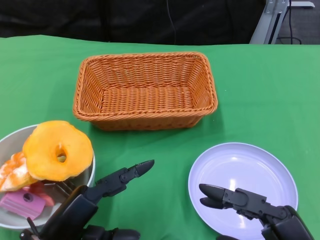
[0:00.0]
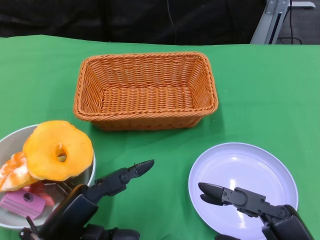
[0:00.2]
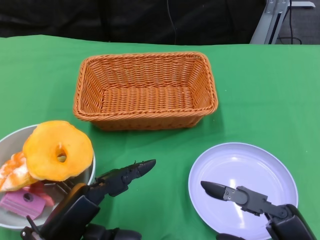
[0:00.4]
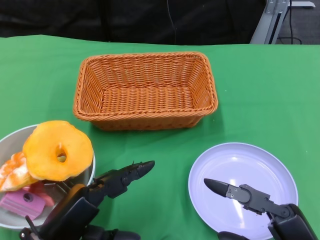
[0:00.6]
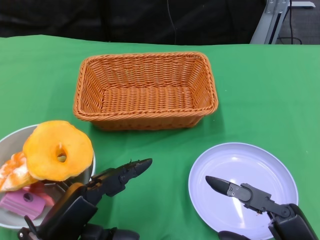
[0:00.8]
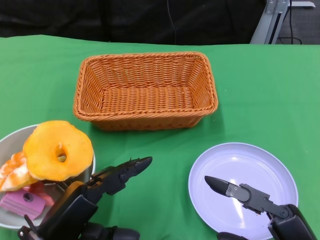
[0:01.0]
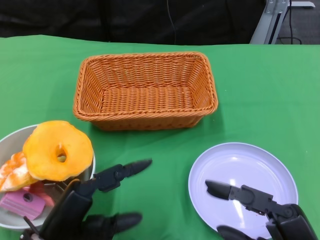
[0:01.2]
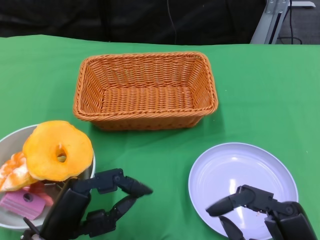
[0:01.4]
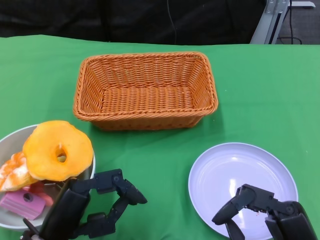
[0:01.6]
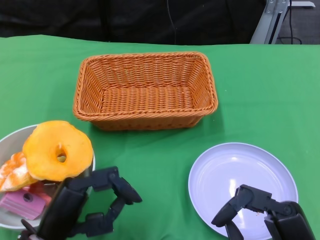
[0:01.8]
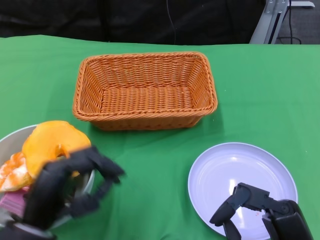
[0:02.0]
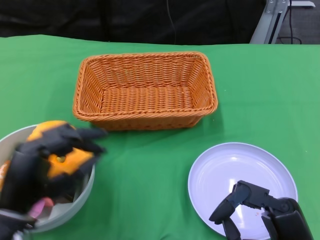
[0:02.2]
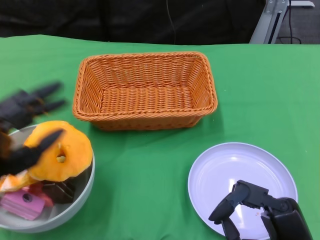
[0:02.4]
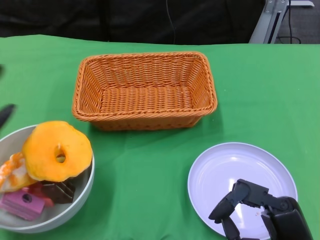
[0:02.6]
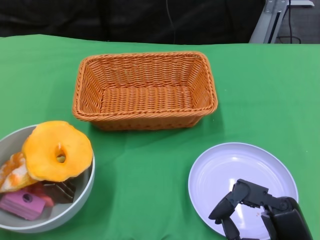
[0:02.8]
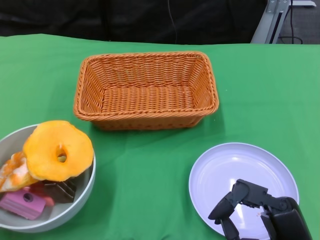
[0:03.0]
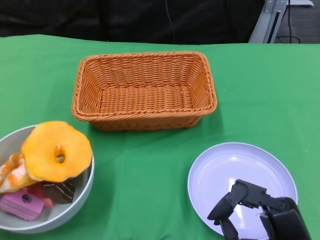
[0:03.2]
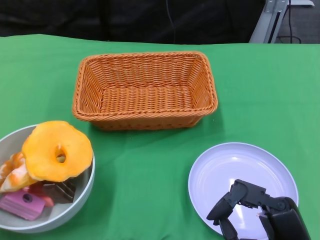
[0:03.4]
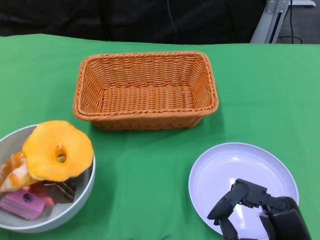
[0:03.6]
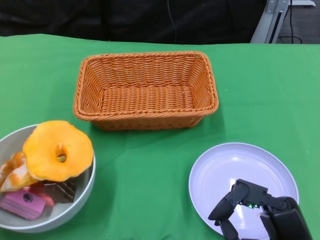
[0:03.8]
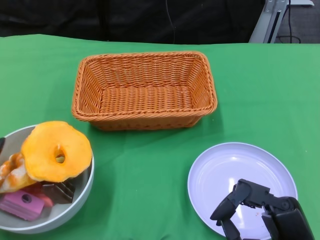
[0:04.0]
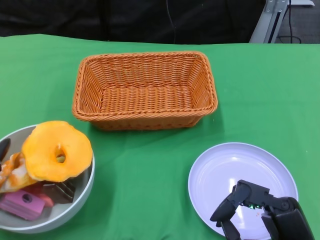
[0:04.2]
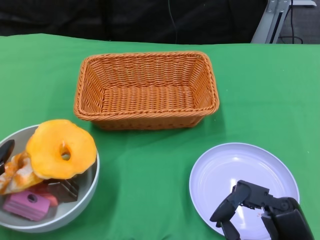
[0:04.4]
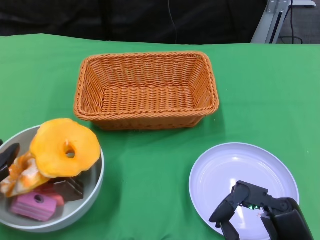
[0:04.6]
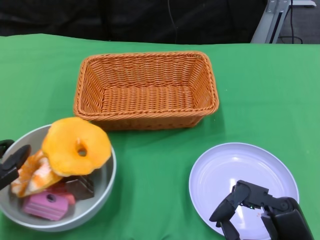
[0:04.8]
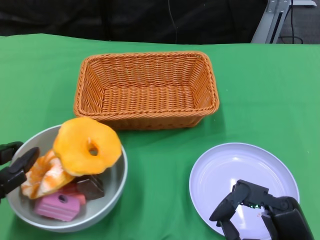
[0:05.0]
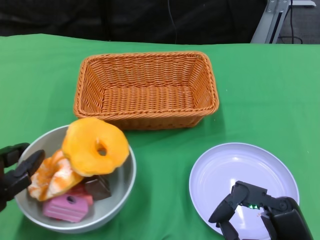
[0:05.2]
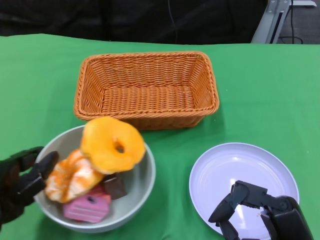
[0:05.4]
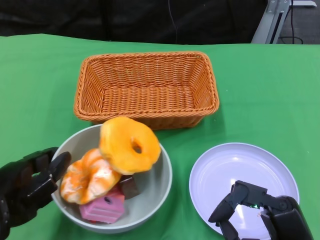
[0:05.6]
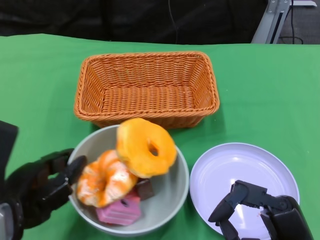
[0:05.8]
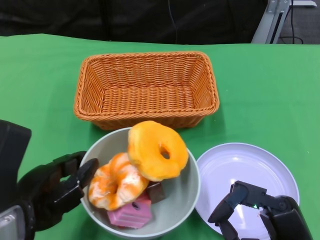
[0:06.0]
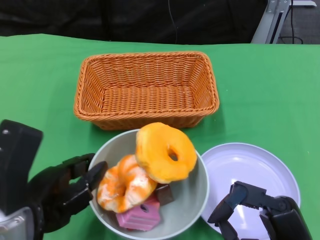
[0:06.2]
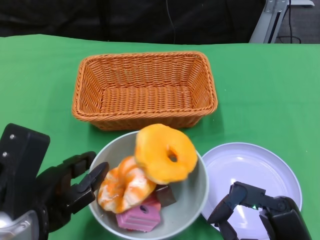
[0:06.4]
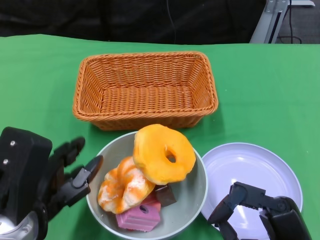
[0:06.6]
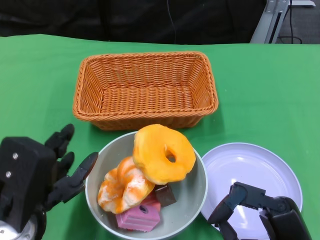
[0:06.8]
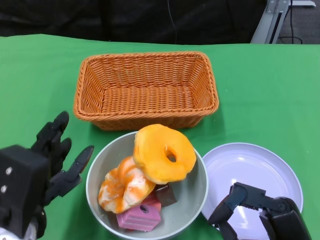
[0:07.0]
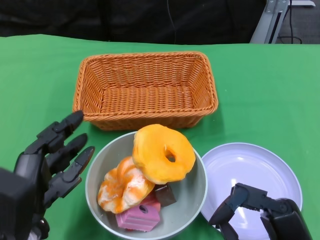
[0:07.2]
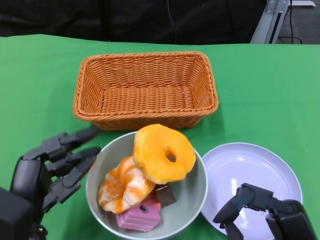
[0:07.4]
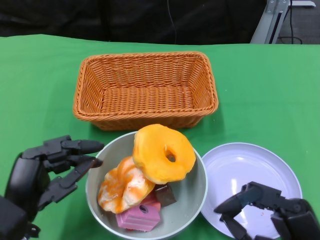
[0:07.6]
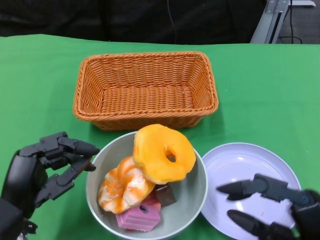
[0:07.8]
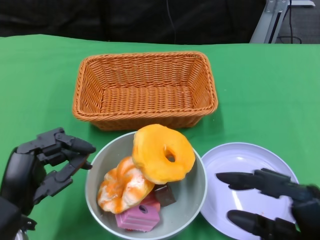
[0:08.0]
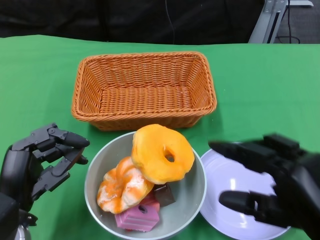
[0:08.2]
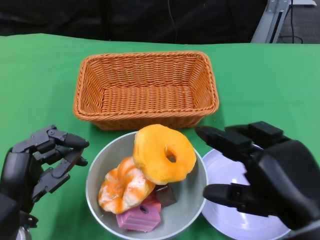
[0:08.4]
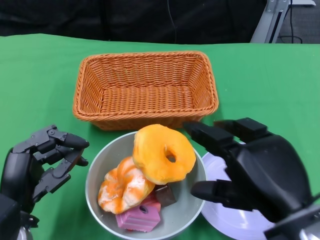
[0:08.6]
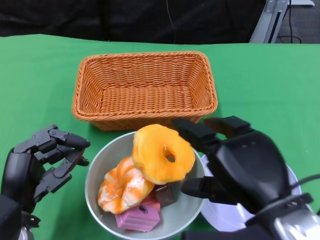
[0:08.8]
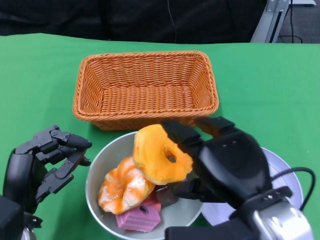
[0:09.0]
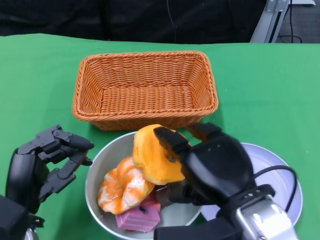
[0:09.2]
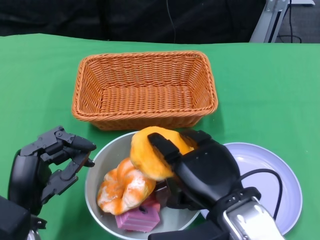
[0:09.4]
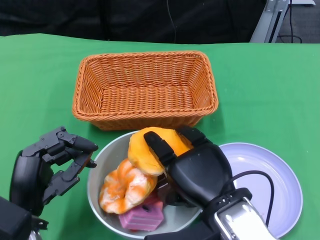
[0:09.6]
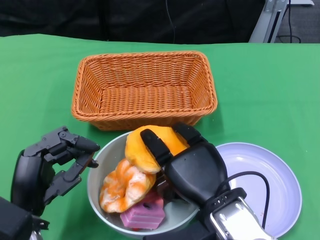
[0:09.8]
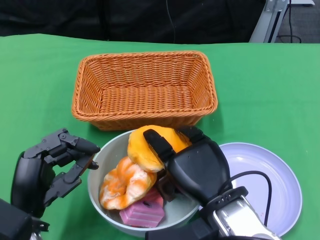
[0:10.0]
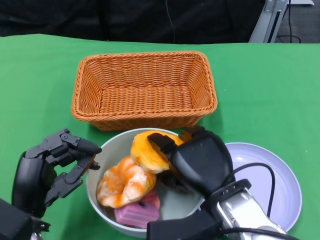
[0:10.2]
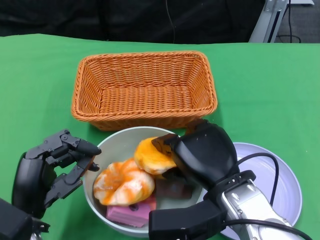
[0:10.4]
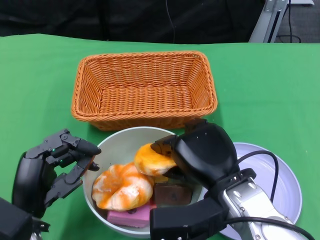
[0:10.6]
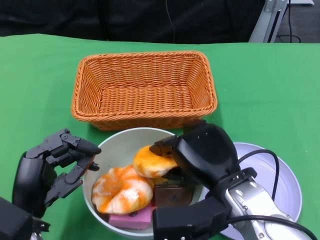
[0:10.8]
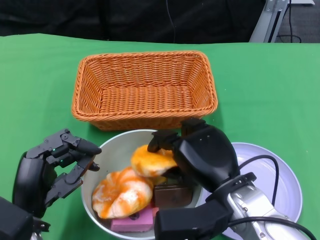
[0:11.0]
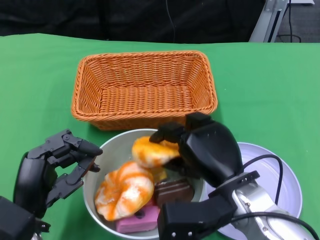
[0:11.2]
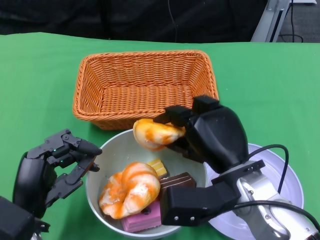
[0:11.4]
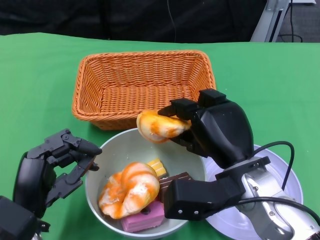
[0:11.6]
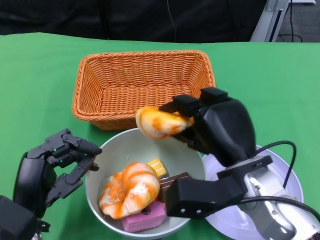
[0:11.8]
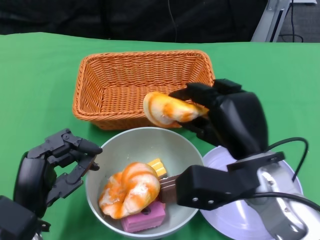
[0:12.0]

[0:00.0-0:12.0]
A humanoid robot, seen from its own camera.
Step, 0:00.0 to 0:06.6: Push the bowl to the center of the table using the left gripper.
0:01.6 to 0:03.0: The left hand moves to the left, approximately 15 cm.
0:04.4 to 0:06.0: The left hand is displaced to the right by about 10 cm.
0:06.0 to 0:07.6: The left hand travels downward by about 5 cm.
0:07.6 to 0:09.0: The right hand moves upward, to the left and forward, some 10 cm.
0:09.0 to 0:10.4: The right hand ends up some 5 cm from where it was.

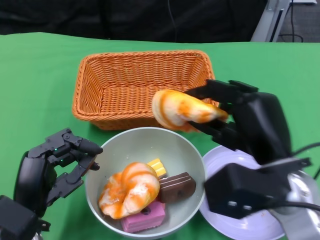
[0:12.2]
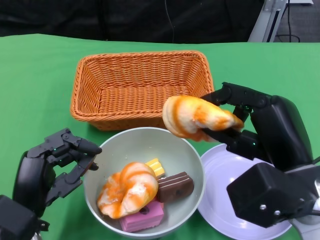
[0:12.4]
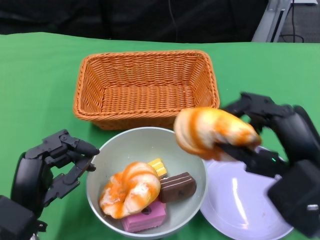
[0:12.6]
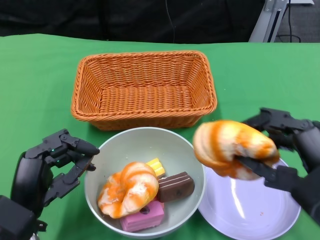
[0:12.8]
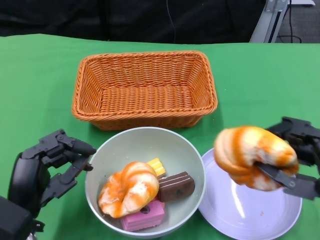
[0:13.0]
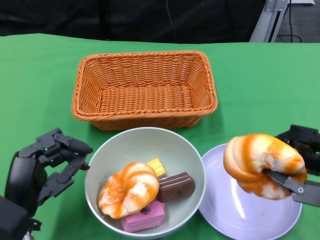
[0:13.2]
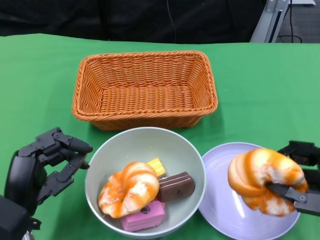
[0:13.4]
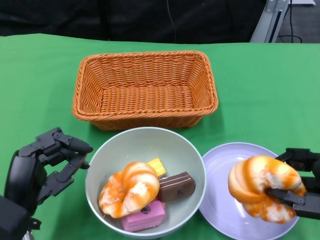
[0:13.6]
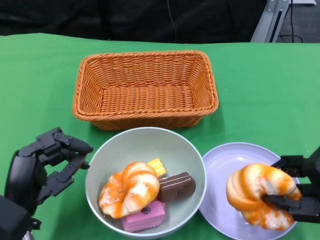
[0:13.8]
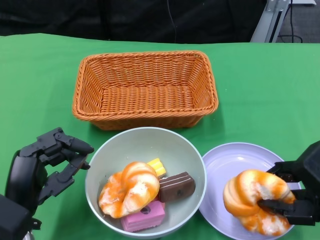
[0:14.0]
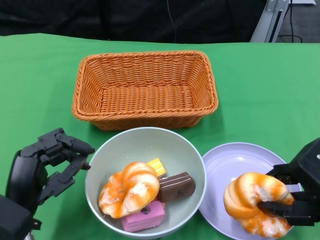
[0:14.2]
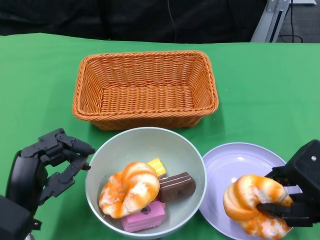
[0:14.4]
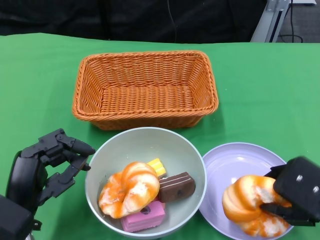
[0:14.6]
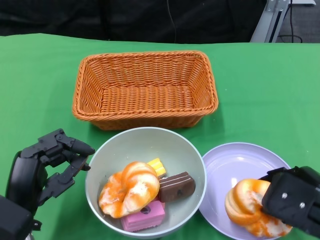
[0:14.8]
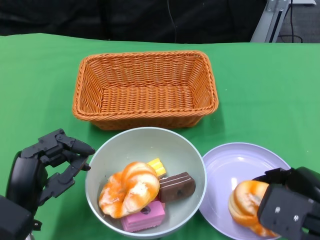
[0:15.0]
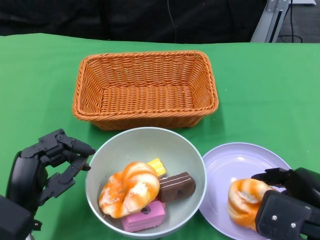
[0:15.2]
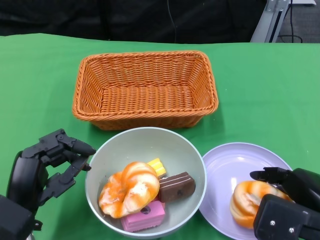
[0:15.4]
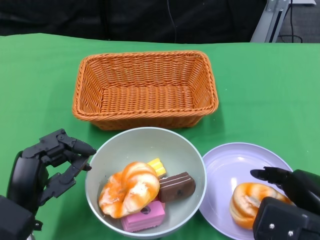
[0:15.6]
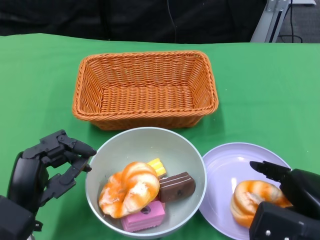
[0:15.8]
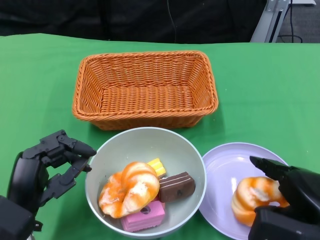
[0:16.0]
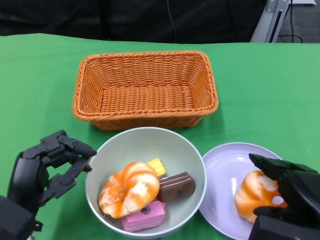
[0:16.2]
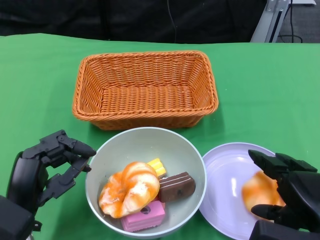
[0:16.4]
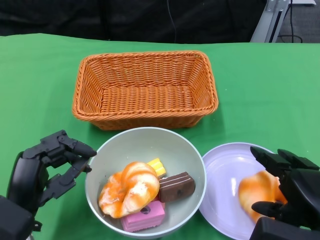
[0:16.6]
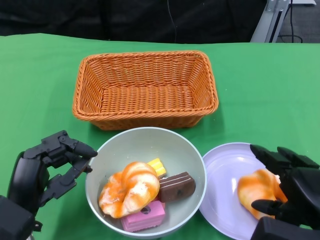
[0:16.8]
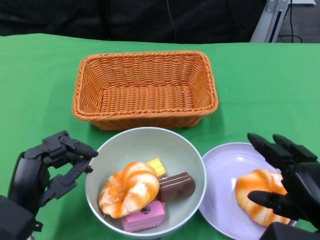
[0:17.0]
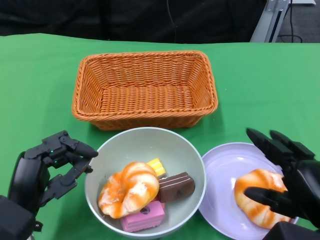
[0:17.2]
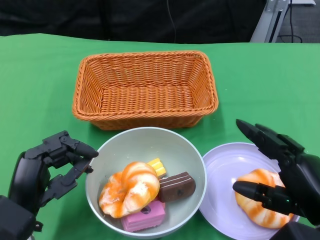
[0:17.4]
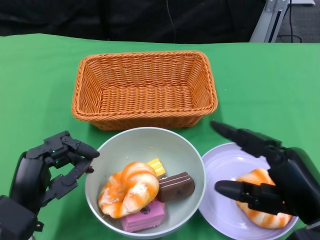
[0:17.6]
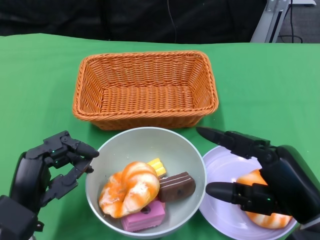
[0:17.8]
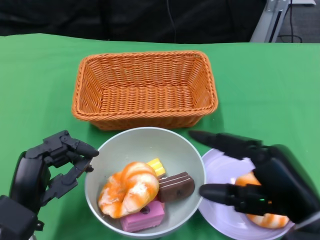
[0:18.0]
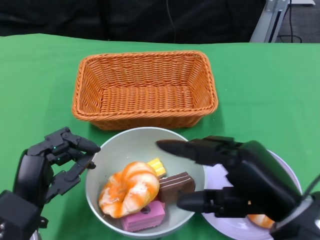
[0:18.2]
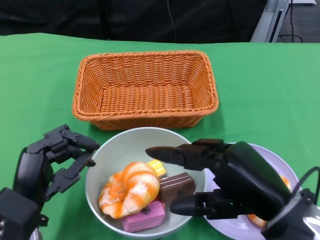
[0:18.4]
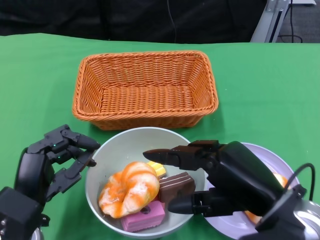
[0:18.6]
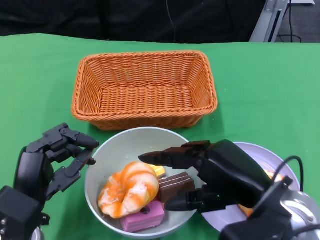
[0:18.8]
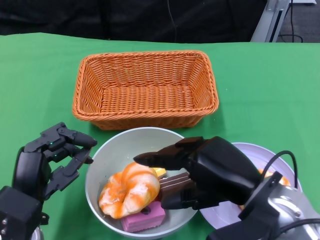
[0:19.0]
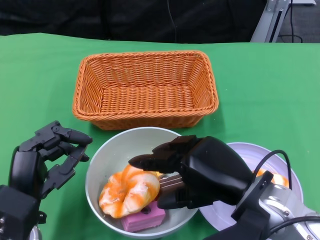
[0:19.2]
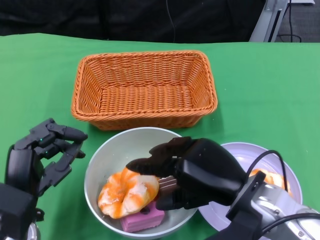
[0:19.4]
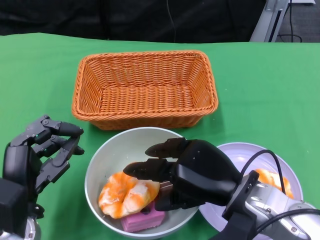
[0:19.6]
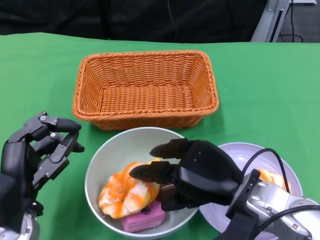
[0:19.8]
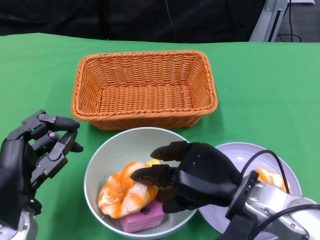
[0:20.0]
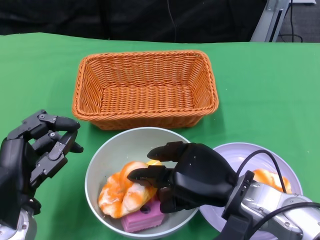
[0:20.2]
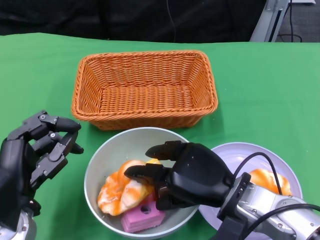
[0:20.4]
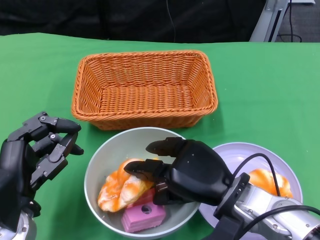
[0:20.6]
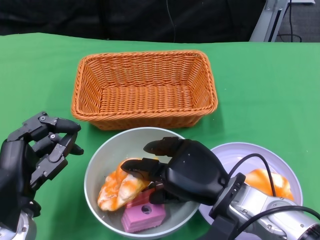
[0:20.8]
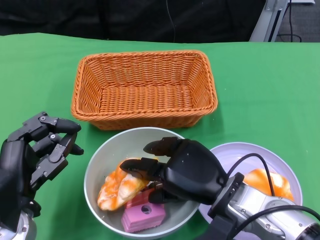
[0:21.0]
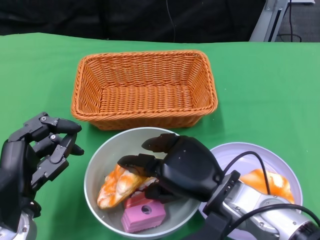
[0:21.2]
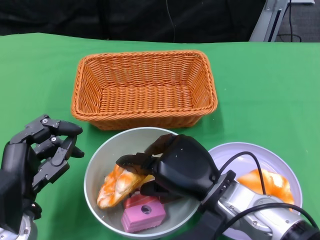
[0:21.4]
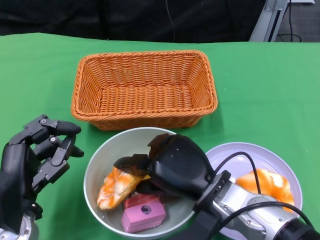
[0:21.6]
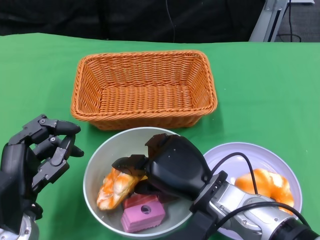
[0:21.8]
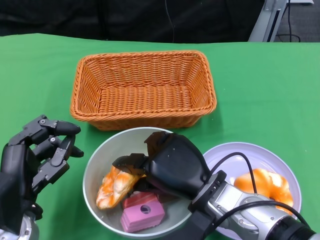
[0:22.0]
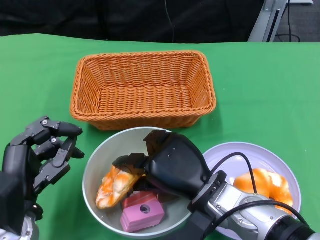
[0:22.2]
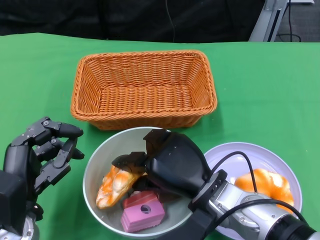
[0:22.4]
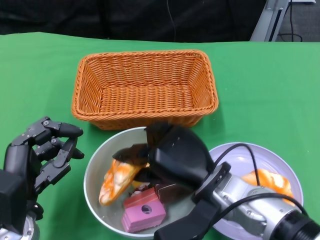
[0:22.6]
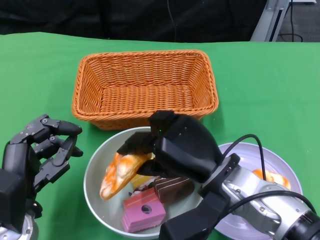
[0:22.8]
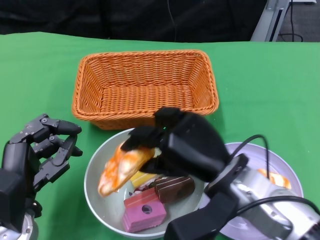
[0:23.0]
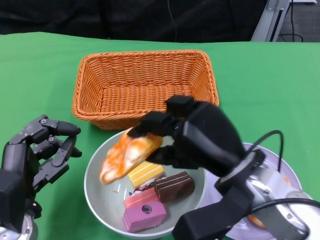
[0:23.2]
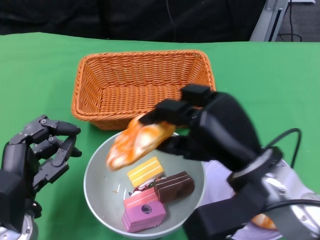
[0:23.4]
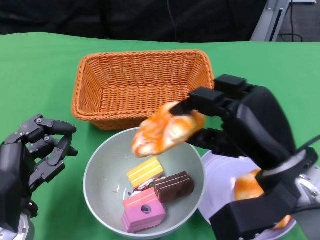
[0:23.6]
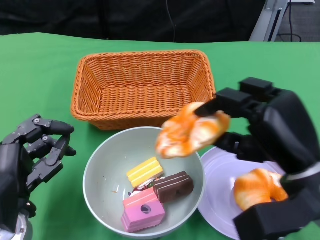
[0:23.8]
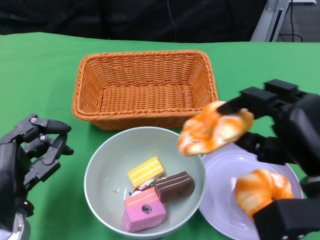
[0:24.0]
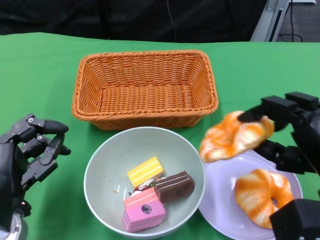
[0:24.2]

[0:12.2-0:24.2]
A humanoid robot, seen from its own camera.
0:12.2 to 0:13.8: The right hand shifts about 10 cm to the right and backward.
0:15.2 to 0:16.6: The hands move only a little.
0:16.6 to 0:18.2: The right hand travels upward and to the left by approximately 10 cm.
0:18.2 to 0:19.8: The right hand travels forward and downward by about 10 cm.
0:19.8 to 0:21.2: The hands make only small movements.
0:21.2 to 0:22.6: There are only small adjustments of the hands.
0:22.6 to 0:24.2: The right hand travels to the right by about 15 cm.
